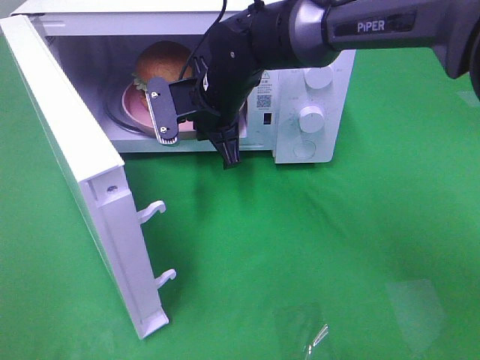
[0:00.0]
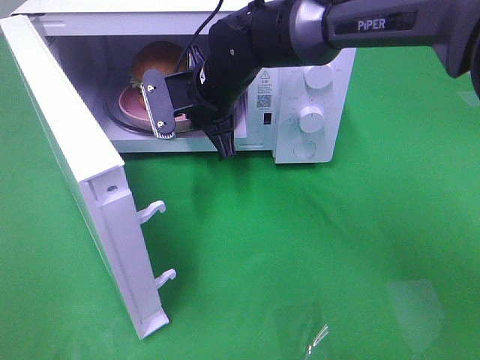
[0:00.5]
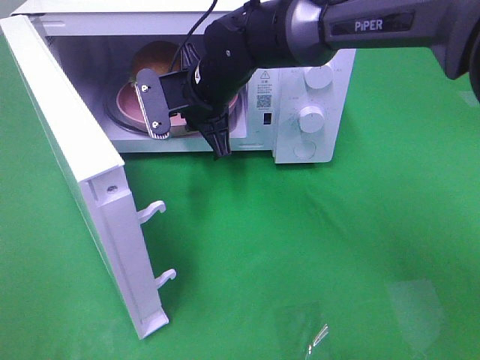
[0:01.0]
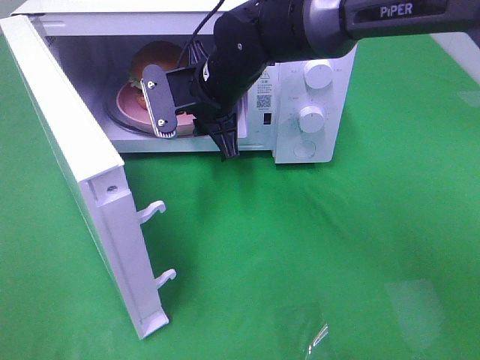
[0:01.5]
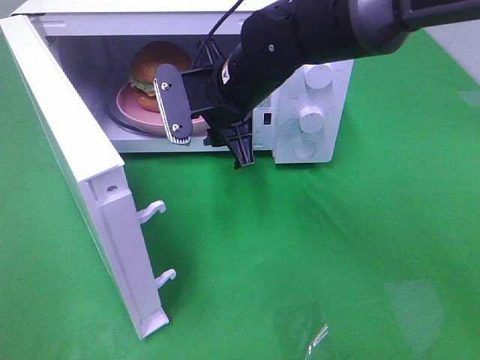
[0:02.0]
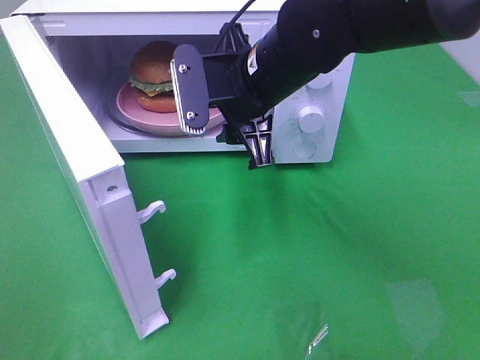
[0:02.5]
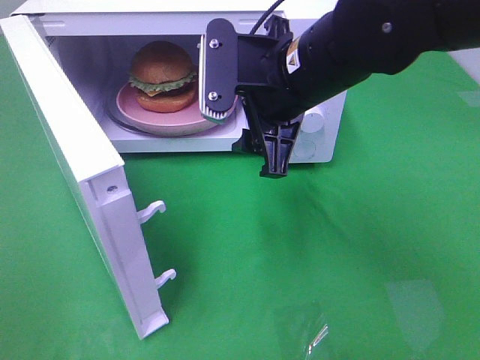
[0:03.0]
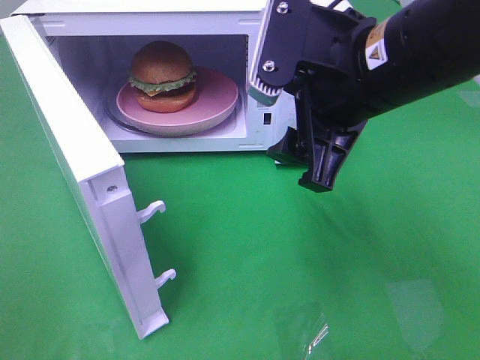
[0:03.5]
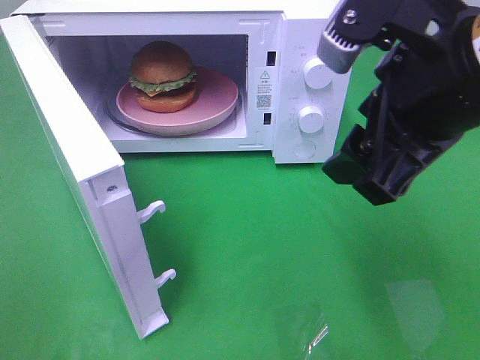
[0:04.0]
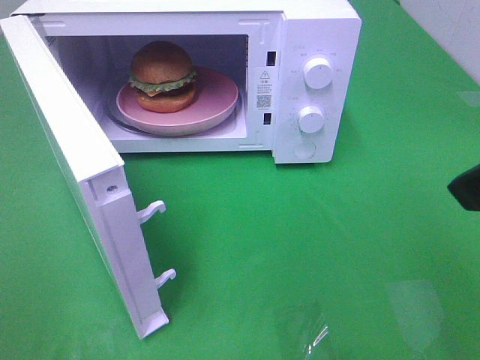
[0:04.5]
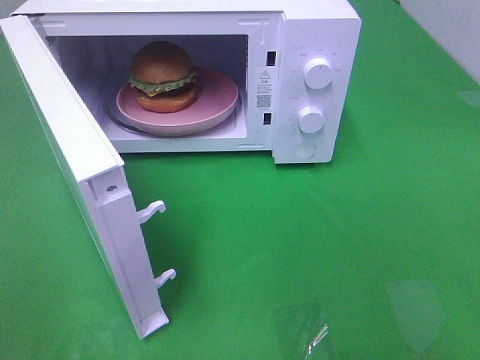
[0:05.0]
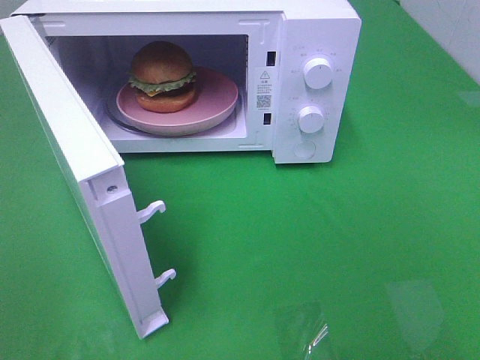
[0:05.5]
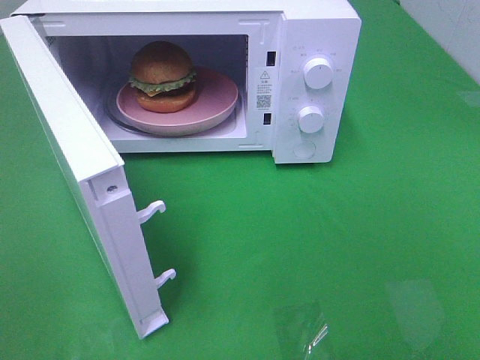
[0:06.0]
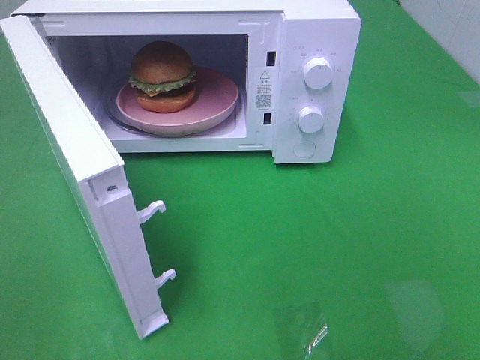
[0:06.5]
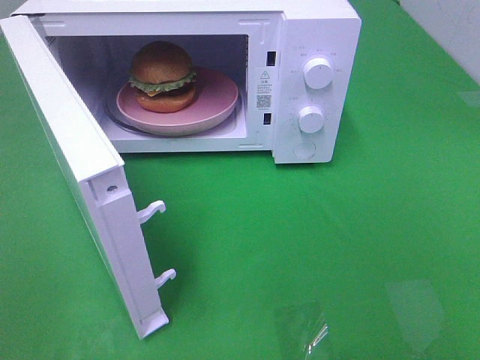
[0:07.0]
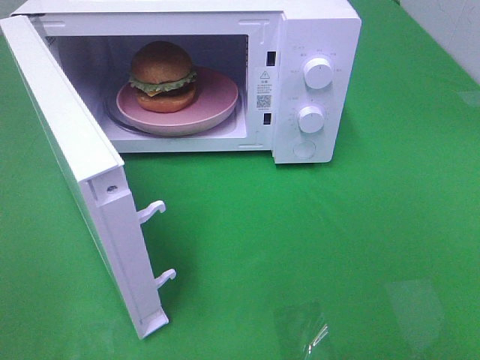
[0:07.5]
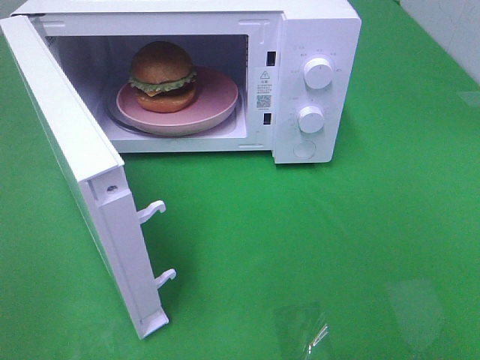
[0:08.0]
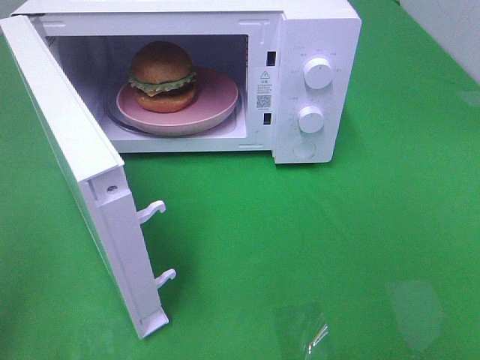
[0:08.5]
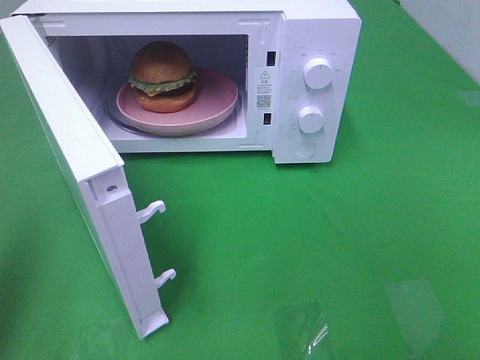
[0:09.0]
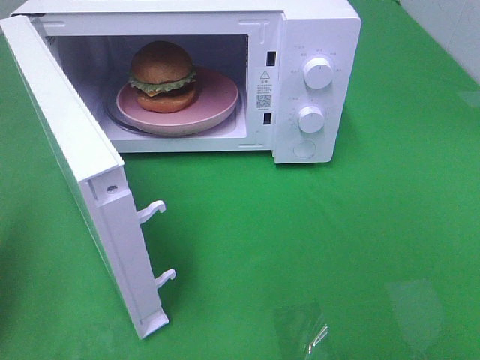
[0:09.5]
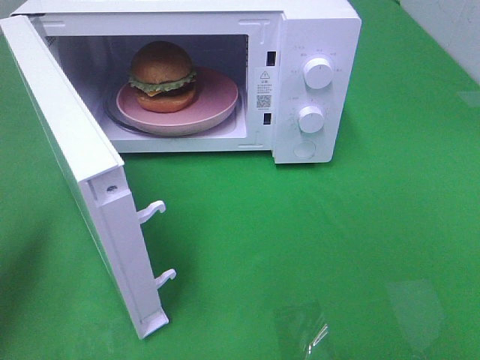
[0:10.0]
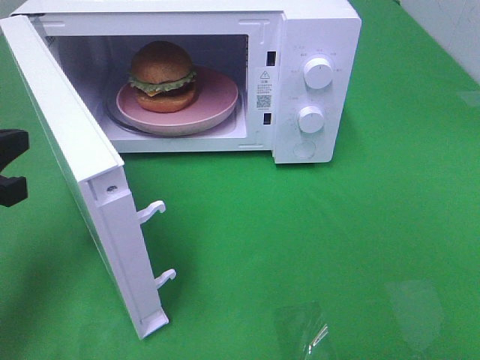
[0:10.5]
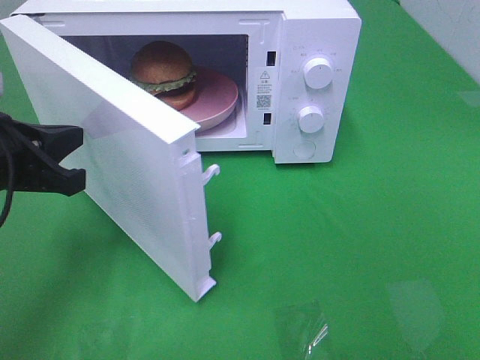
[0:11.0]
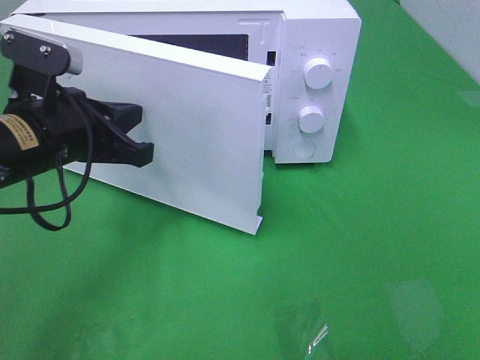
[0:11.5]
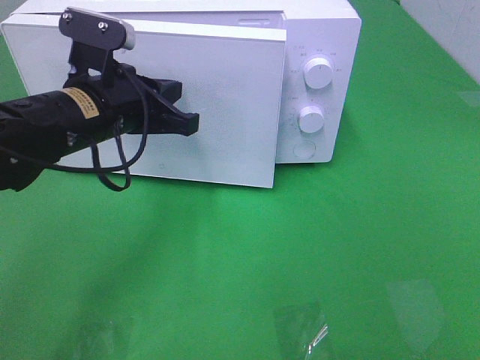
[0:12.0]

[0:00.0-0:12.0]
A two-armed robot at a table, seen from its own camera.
Task of the whole recording: Heat the burger.
0:00.0 to 0:02.0: The right gripper ends up approximately 5 cm from where it was, and opens its fingers.
0:02.0 to 0:04.0: The right gripper goes roughly 25 cm backward, to the right and upward.
0:04.0 to 0:06.0: The right gripper is displaced backward and to the right by roughly 25 cm.
0:06.0 to 0:08.0: Neither gripper changes place.
0:08.0 to 0:10.0: The left gripper heads forward, covering about 20 cm, and closes up.
0:10.0 to 0:12.0: The left gripper moves to the right and forward, roughly 20 cm.

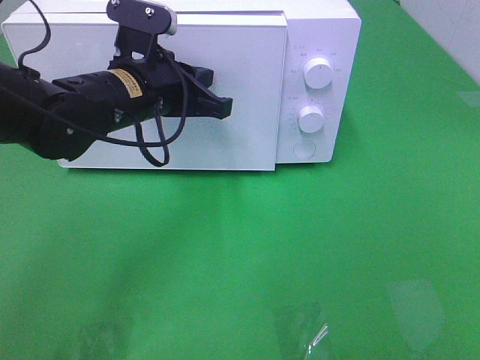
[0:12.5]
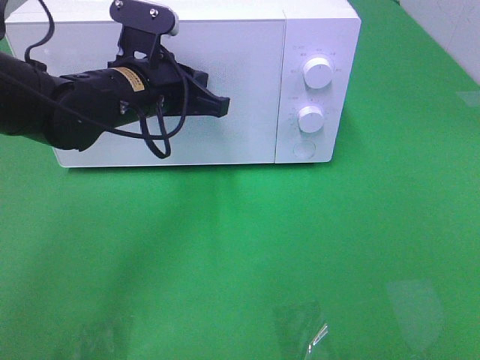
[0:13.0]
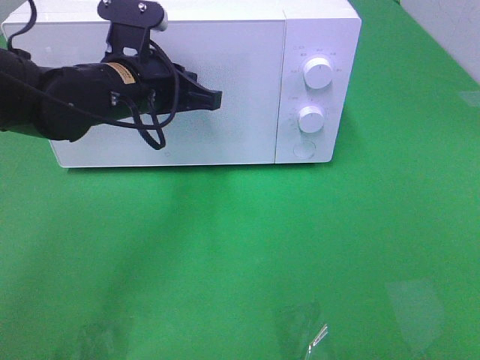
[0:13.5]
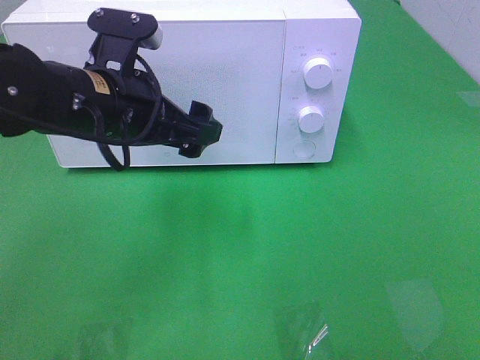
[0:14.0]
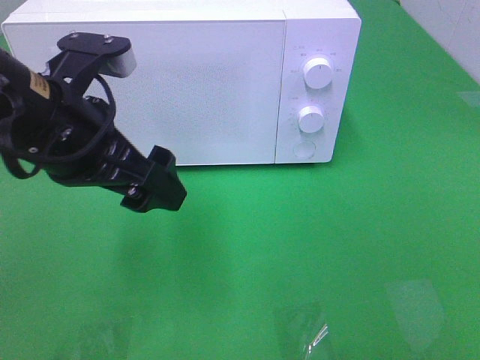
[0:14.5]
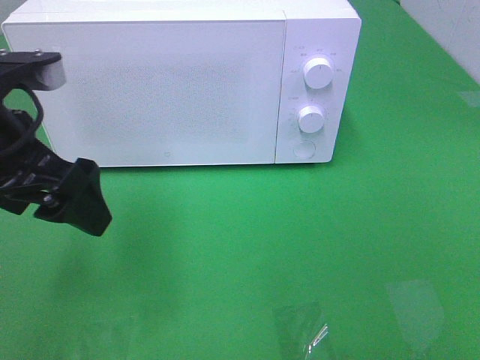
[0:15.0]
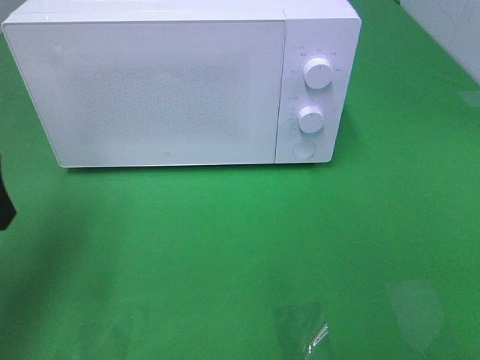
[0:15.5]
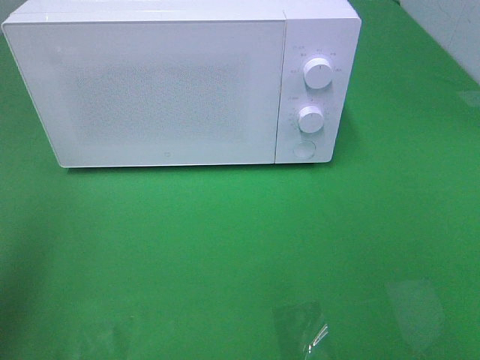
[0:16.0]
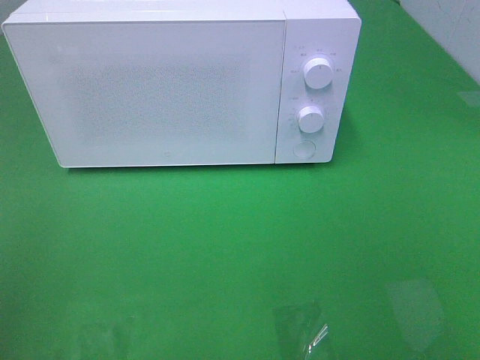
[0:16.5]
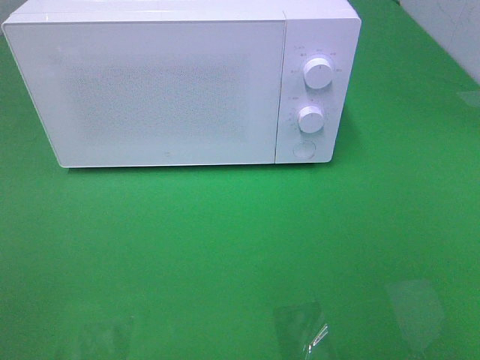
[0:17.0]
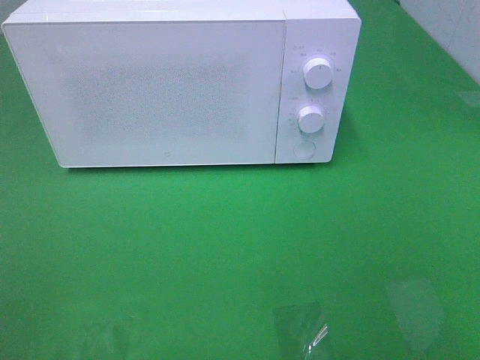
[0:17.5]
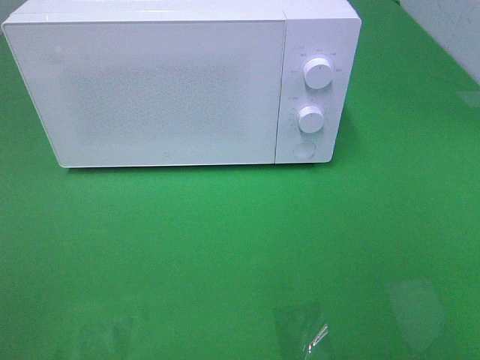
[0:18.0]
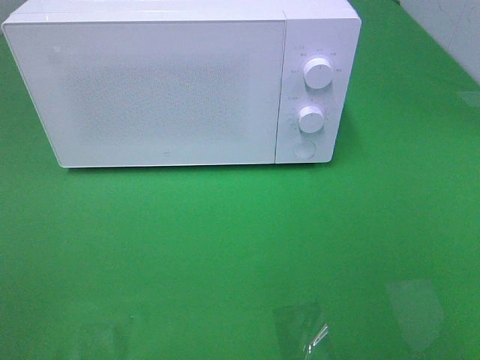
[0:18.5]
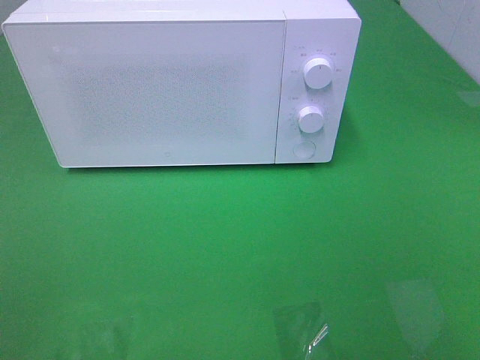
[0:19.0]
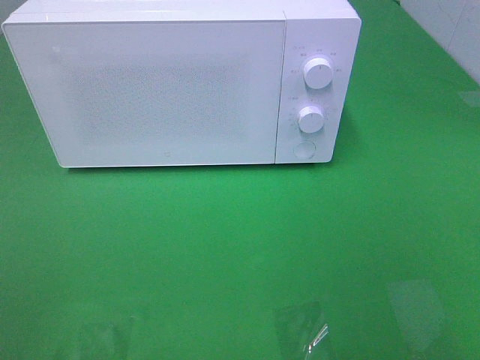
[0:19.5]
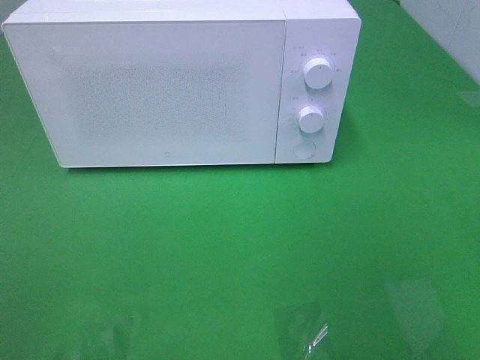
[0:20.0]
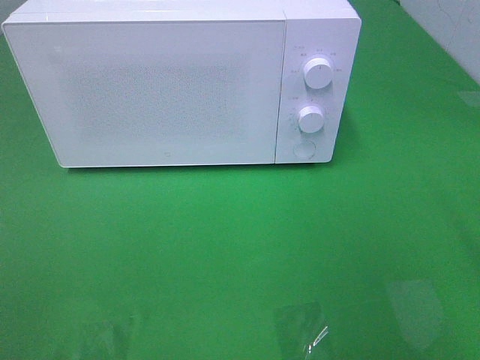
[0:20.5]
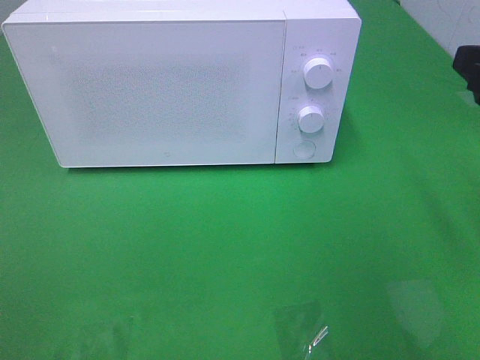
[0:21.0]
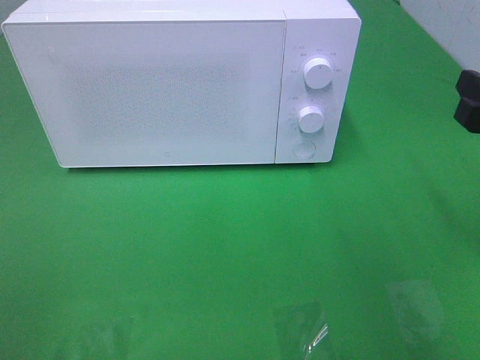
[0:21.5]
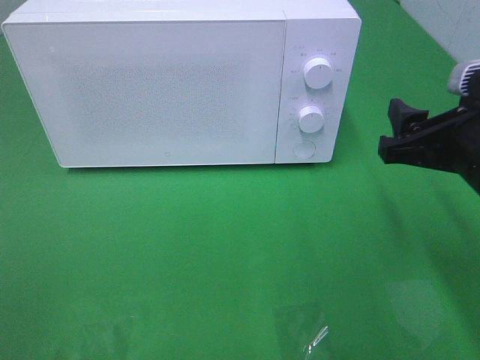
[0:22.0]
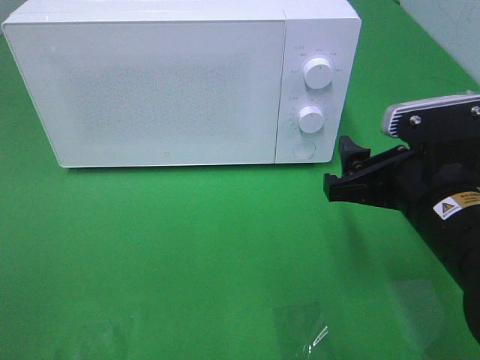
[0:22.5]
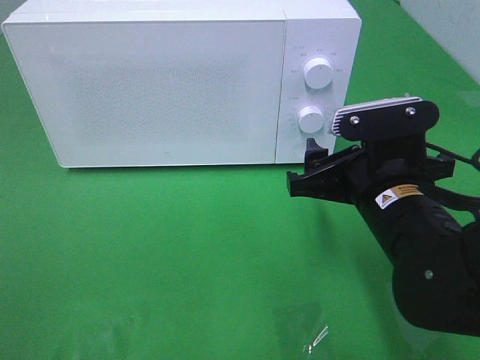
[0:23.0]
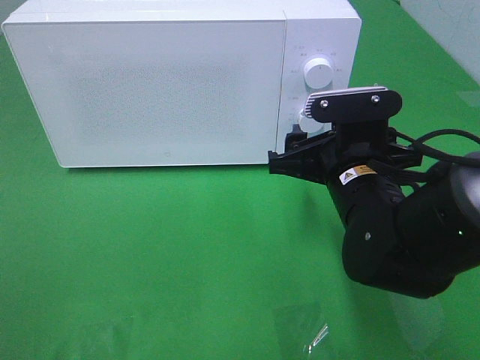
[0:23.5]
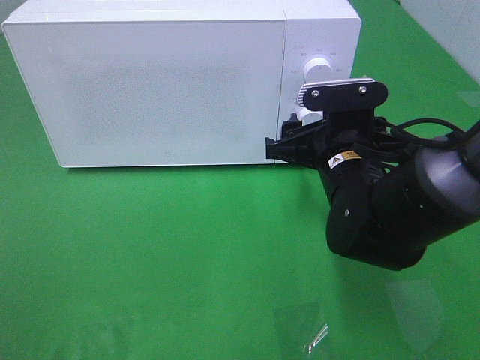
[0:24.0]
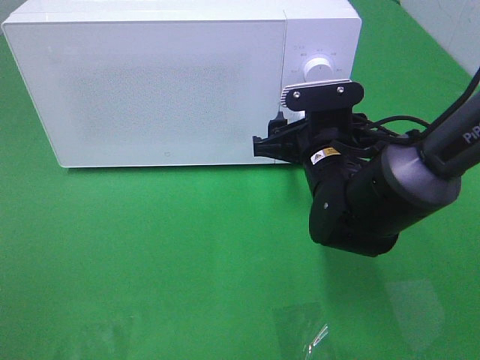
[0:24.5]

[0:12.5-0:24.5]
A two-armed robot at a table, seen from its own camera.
Task of the whole recording: Heat the burger.
0:12.5 to 0:14.5: The left gripper is displaced backward and upward by about 10 cm, and opens up.
0:14.5 to 0:16.5: The left gripper is displaced to the left and backward by some 25 cm.
0:20.5 to 0:22.5: The right gripper shifts about 15 cm downward and to the left.
0:22.5 to 0:24.5: The right gripper shifts approximately 15 cm forward and to the left.

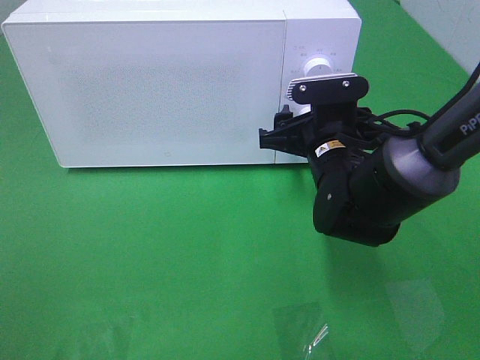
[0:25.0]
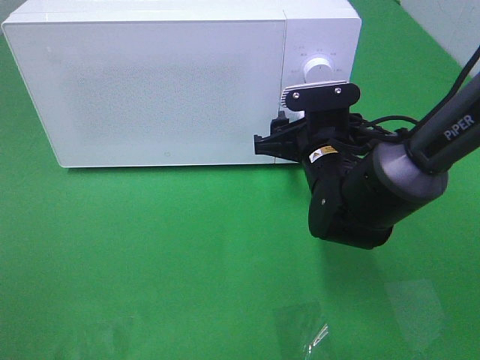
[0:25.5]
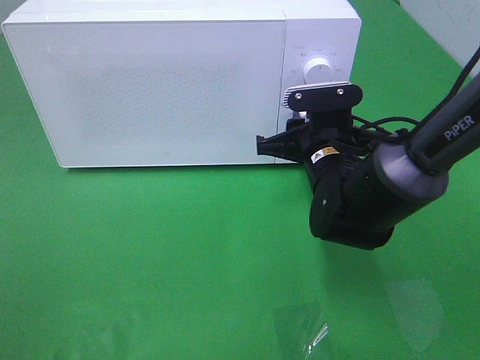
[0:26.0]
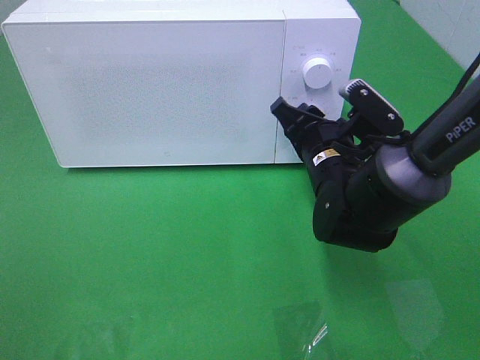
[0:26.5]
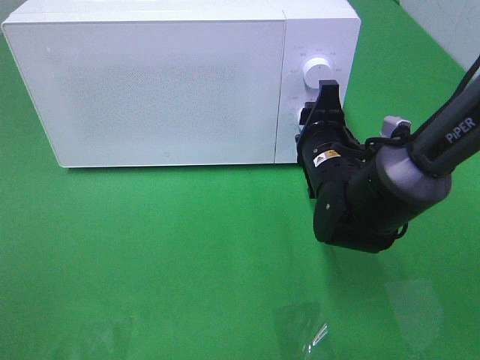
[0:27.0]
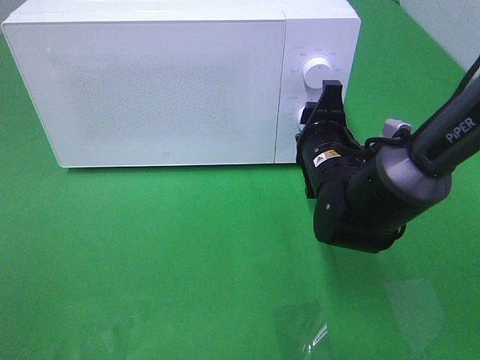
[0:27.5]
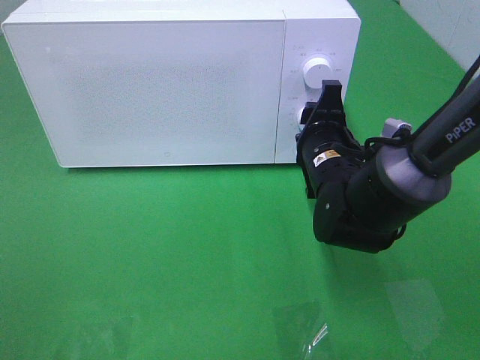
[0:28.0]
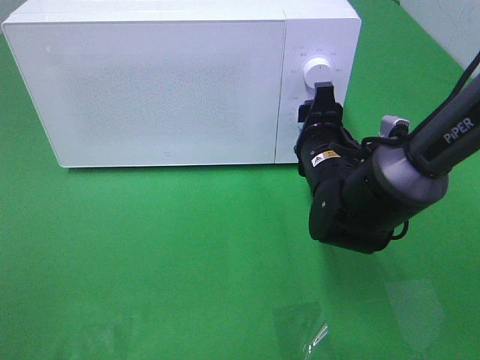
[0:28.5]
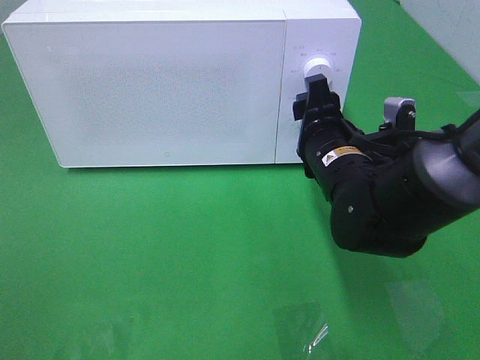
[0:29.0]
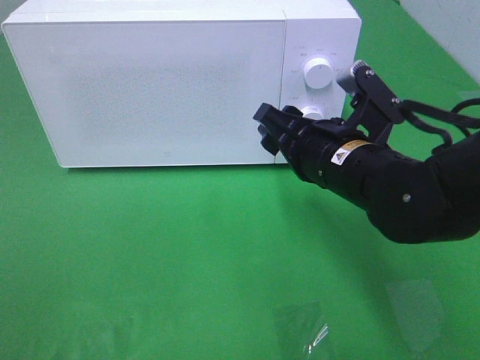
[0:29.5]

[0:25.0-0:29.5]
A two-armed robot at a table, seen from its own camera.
Task of the whole recording: Heat the burger.
Step, 0:25.0 to 0:28.0: Right hand: twist timer button.
0:25.0 to 0:27.0: The right gripper closes its fingers.
0:27.0 to 0:29.5: The right gripper shifts some 5 cm backward.
